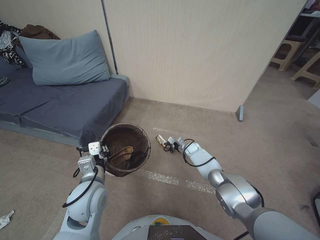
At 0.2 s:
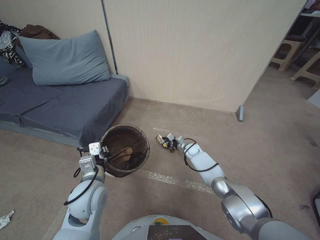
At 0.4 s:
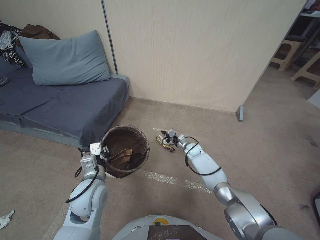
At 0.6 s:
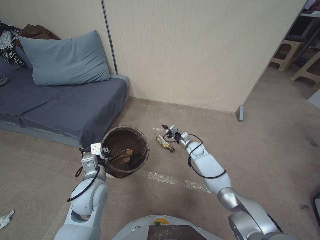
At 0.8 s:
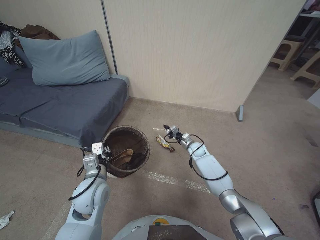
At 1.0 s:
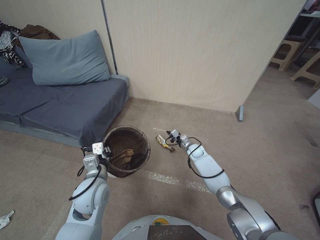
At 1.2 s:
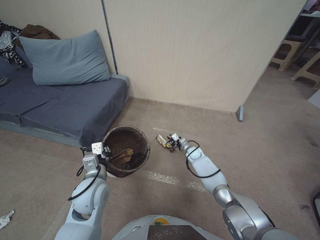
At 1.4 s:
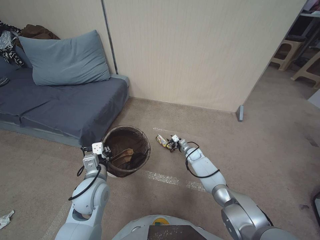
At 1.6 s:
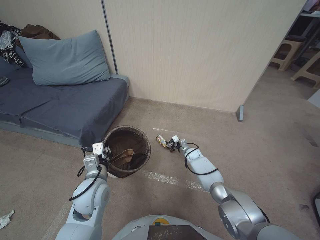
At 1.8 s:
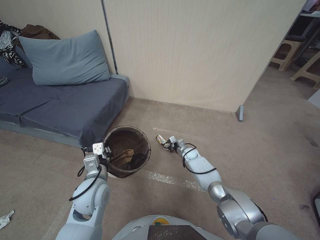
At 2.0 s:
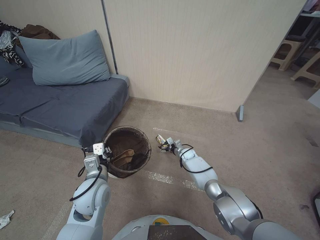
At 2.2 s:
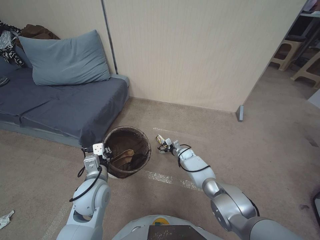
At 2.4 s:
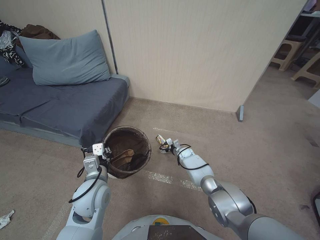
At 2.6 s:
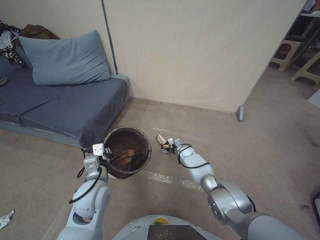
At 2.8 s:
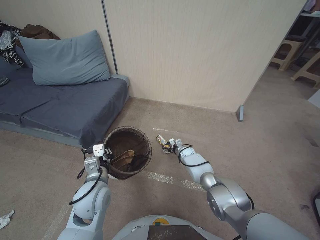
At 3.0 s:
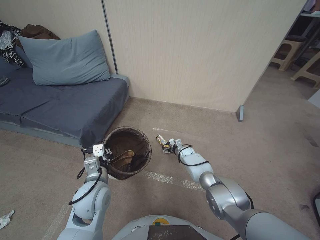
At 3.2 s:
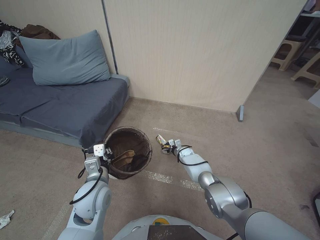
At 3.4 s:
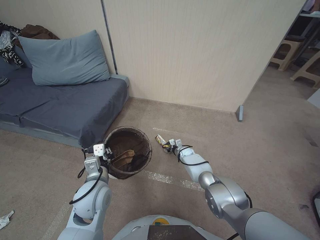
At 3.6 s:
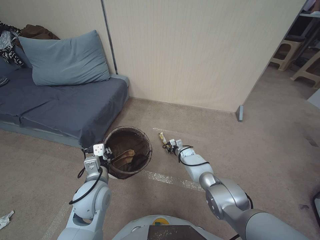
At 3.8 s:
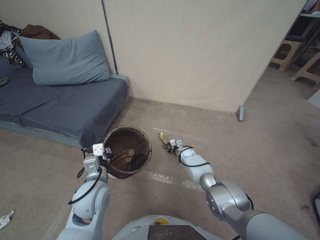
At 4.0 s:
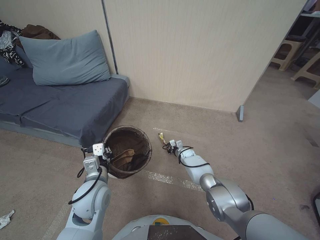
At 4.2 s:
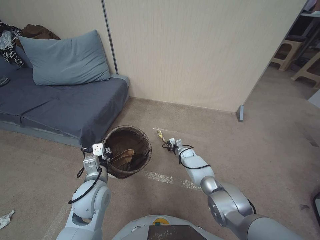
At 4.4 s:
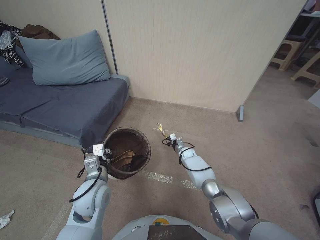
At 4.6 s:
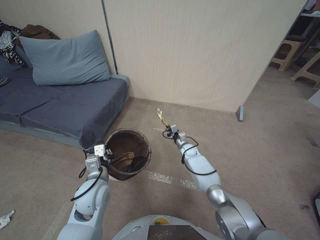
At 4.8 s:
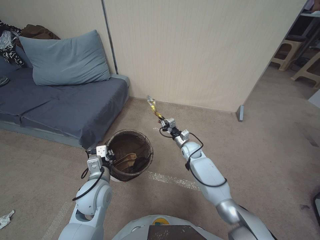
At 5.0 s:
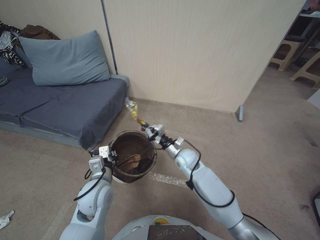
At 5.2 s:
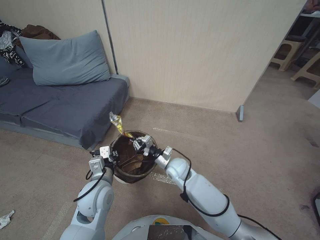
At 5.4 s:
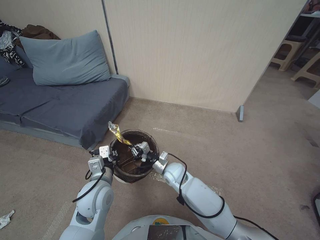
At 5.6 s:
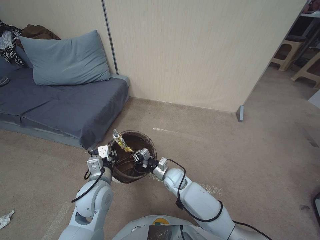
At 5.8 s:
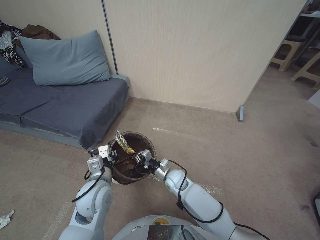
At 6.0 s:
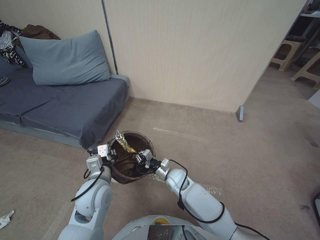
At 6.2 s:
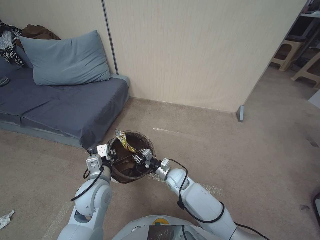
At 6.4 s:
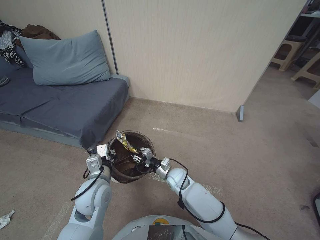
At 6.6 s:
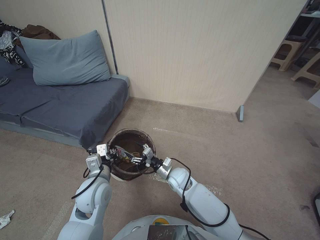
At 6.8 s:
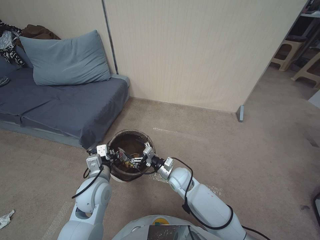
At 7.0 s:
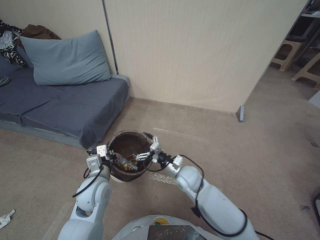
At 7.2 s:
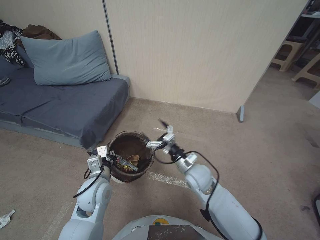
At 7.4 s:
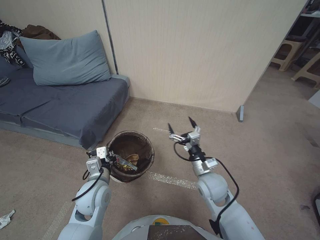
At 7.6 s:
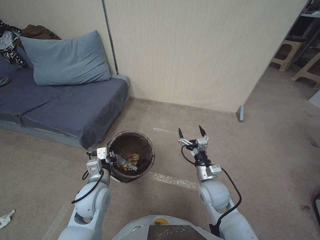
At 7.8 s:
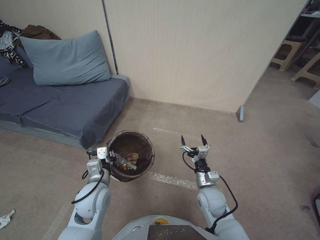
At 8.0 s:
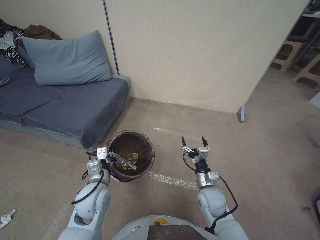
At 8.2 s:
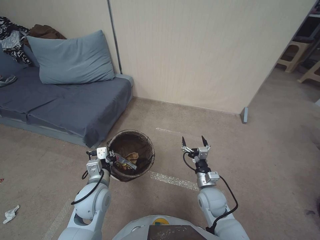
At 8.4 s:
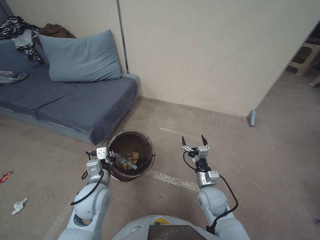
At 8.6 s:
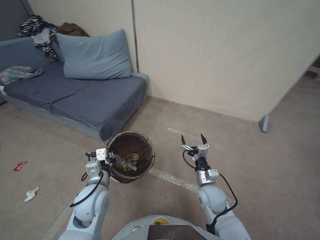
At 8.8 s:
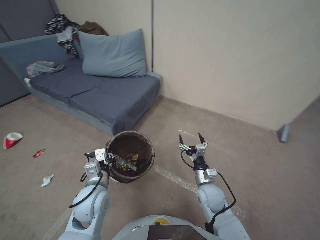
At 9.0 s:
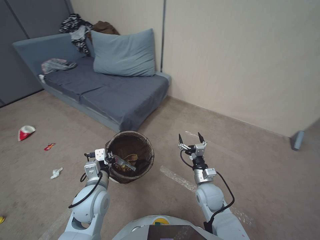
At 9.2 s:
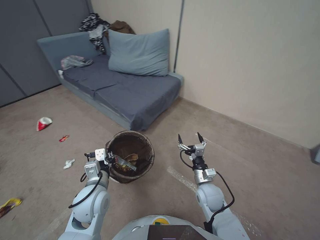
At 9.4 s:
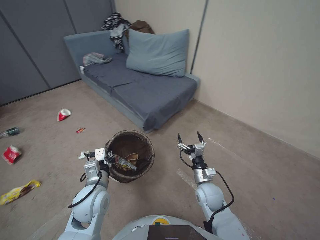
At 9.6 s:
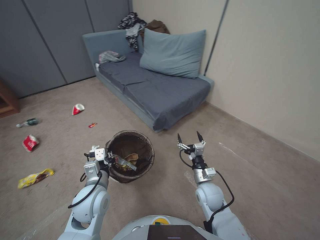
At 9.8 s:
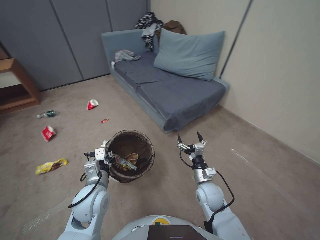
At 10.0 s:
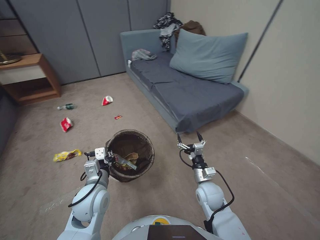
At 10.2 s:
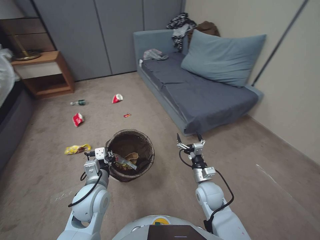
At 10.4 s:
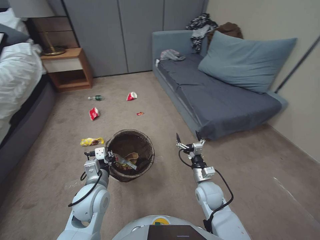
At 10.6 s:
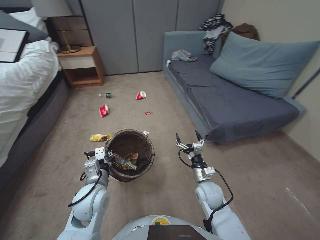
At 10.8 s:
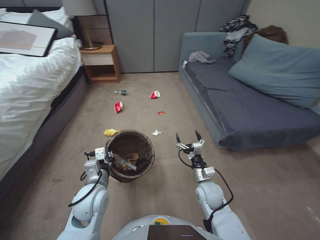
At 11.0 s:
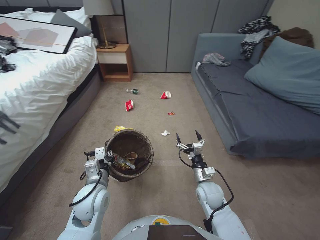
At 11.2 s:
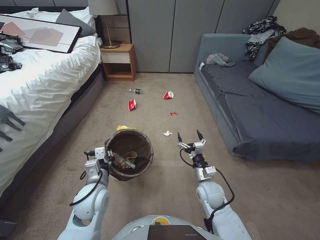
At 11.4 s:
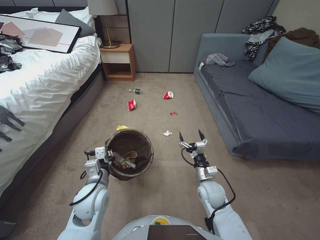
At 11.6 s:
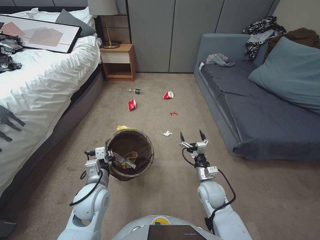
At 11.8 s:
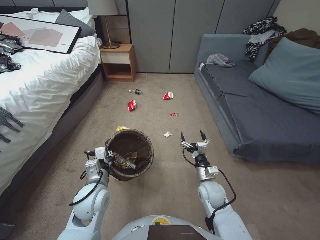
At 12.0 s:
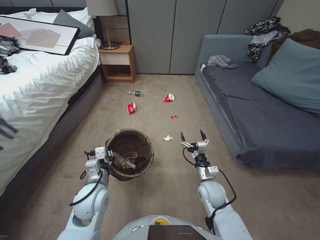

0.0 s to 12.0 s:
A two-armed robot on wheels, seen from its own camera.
Task of the whole recording: Pick up the trash bin, then pick up the garbage from the floor and place it into the trash bin.
0.0 to 1.6 s: The right gripper opens.
1.6 to 3.0 s: The right gripper opens its fingers.
3.0 to 4.4 s: The right gripper closes.
4.4 to 6.0 s: The right gripper moves backward, to the left and upward, approximately 20 cm.
6.0 to 7.6 s: The right gripper is displaced upward and to the right by approximately 15 cm, and opens its fingers.
7.6 to 9.0 s: The right gripper goes some 10 cm downward.

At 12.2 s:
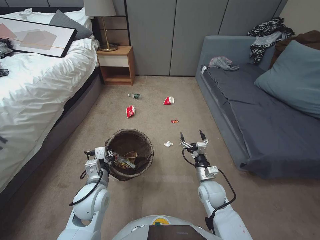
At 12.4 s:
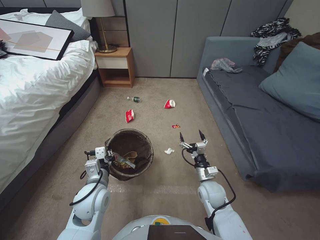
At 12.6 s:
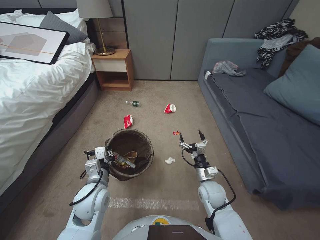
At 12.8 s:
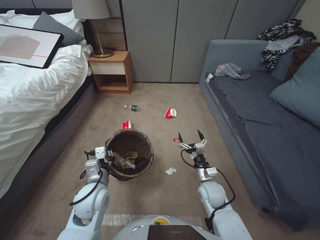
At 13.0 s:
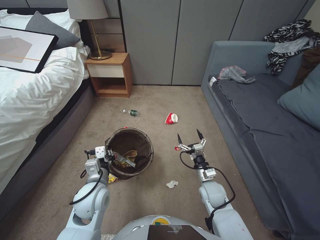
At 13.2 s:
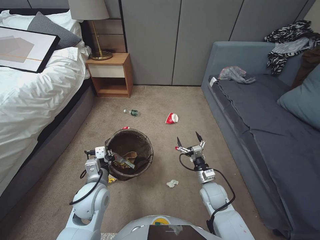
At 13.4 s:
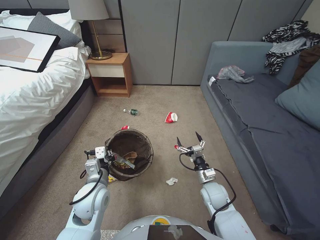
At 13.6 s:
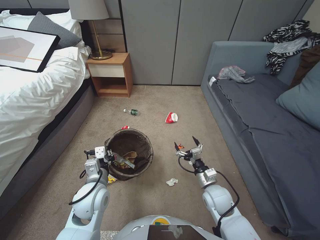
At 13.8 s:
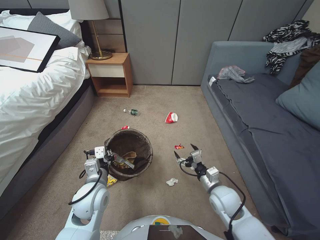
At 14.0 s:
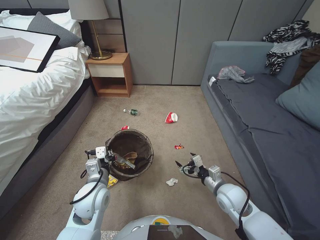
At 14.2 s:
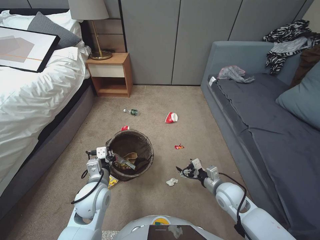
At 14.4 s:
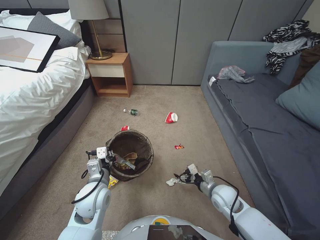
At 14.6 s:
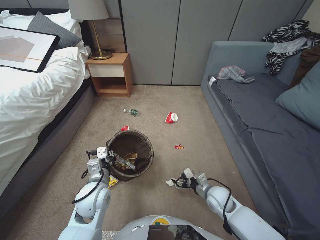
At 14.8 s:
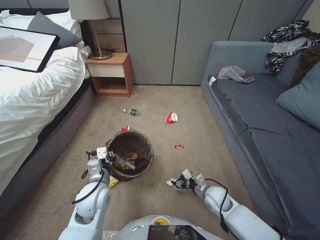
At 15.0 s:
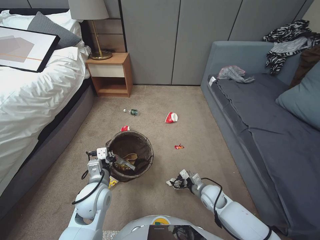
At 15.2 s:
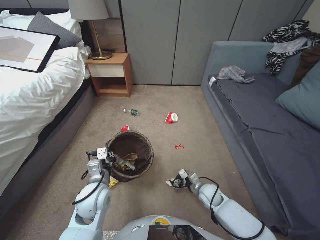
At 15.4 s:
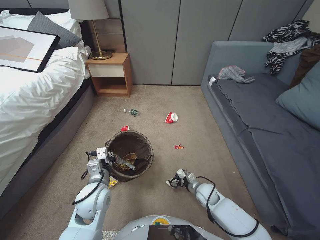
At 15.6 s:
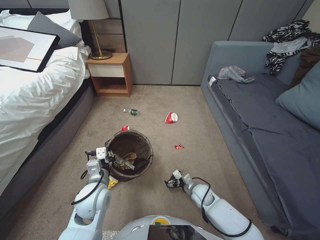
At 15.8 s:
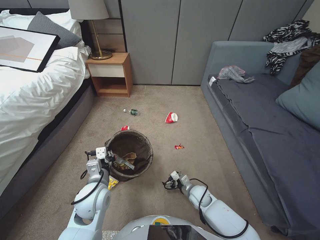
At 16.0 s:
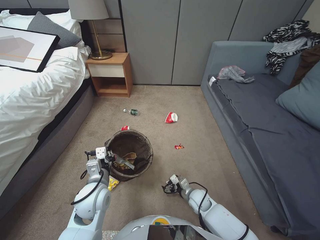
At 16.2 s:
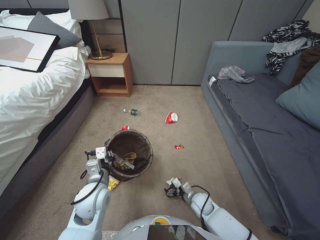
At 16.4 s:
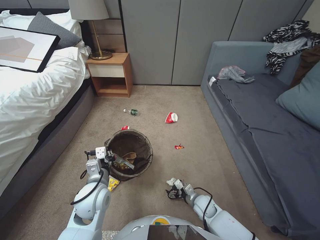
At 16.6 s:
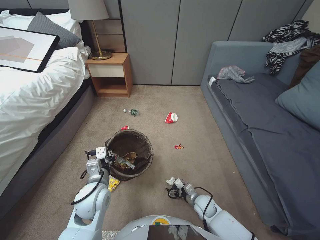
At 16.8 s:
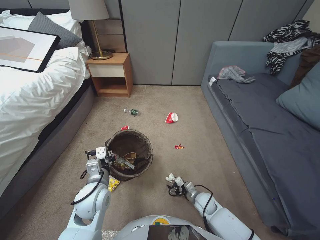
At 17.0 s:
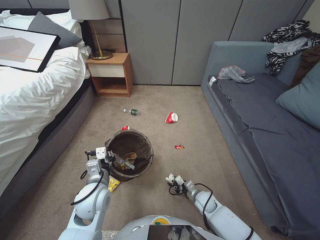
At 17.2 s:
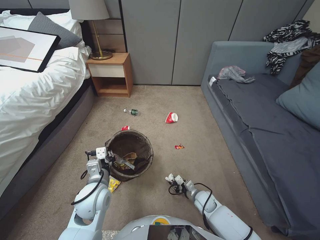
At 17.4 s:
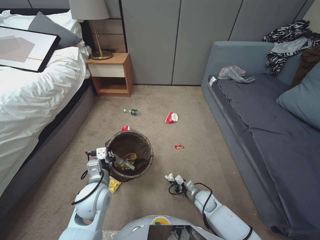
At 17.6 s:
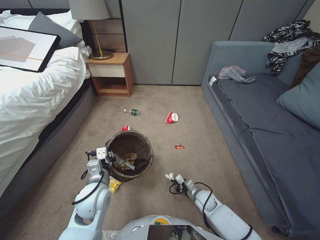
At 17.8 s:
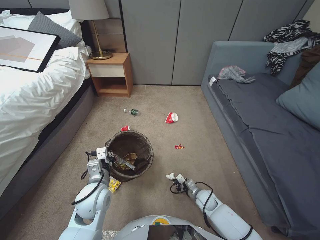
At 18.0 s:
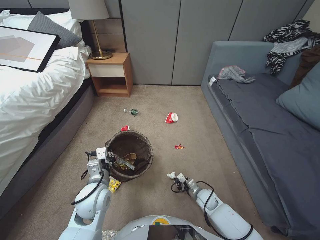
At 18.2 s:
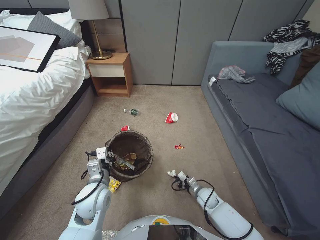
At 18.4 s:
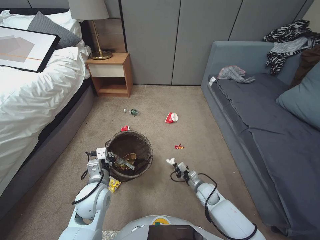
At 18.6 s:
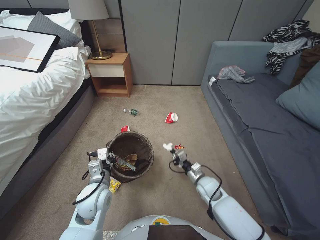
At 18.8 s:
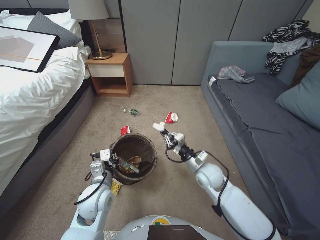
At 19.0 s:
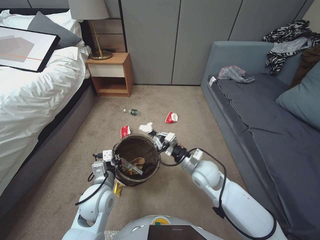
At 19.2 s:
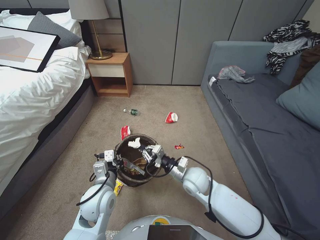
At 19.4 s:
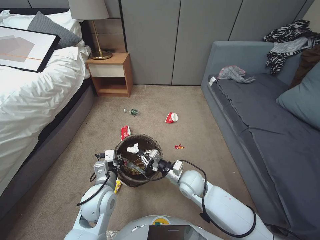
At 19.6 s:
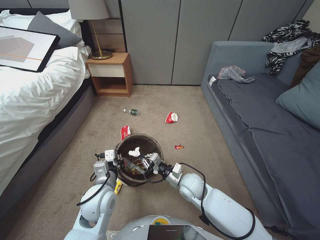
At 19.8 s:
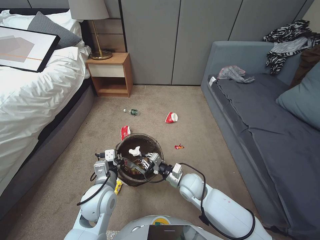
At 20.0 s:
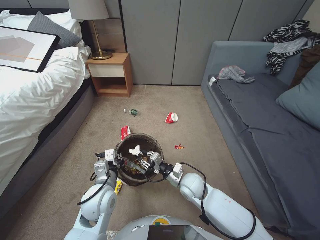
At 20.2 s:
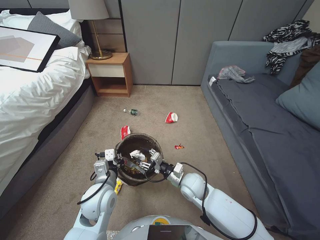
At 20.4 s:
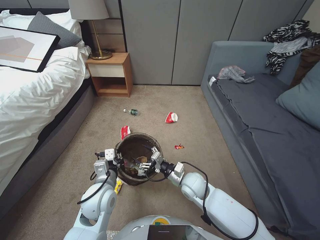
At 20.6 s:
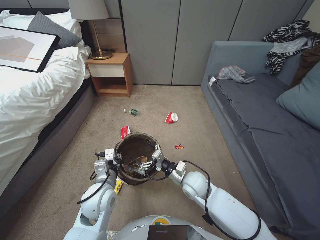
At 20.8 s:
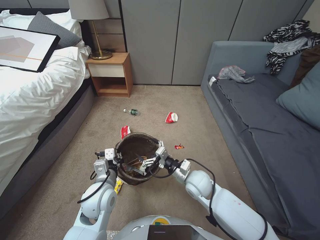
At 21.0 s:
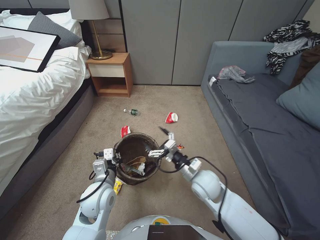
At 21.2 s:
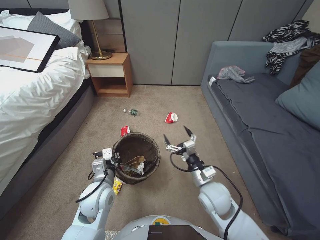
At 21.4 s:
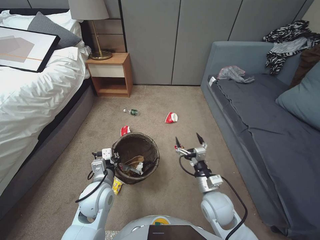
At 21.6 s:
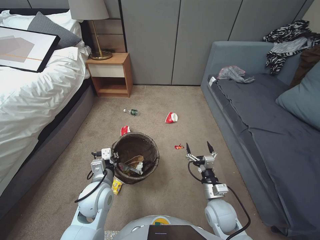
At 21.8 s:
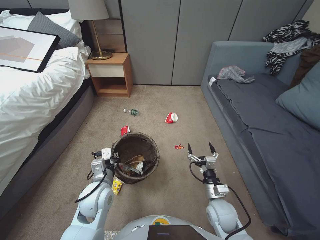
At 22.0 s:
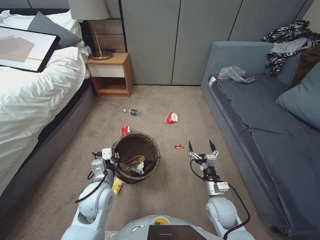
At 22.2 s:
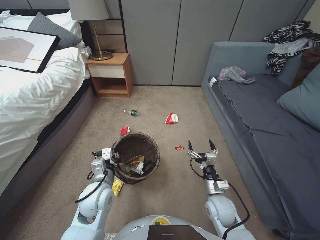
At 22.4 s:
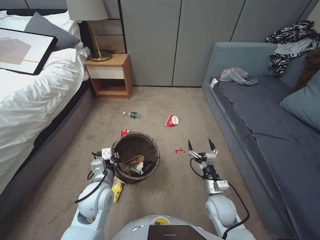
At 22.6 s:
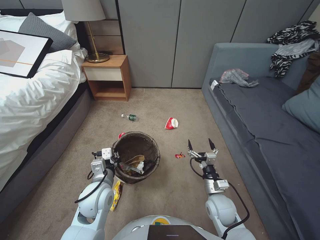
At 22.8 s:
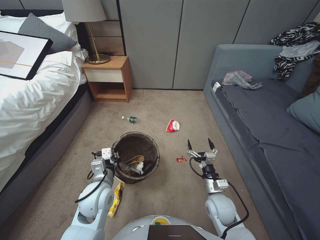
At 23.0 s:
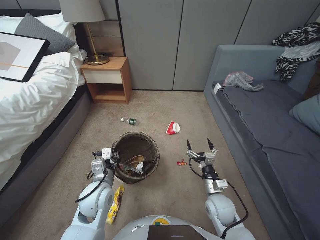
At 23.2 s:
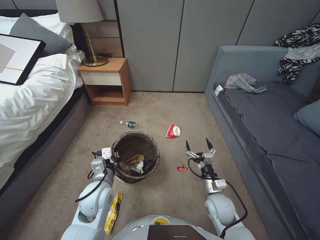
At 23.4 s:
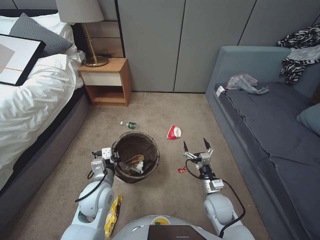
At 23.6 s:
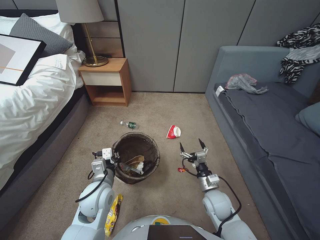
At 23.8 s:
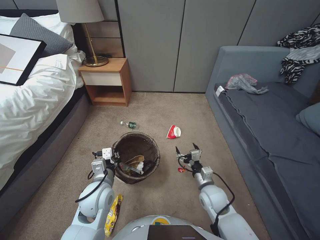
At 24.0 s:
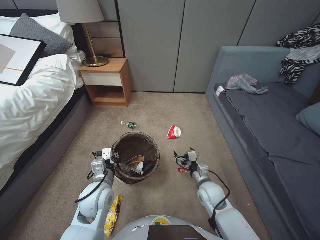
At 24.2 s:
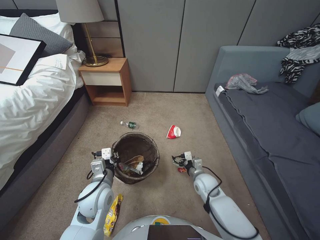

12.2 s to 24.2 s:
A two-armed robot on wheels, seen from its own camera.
Task of the whole recording: Pick up the trash bin, then pick up the garbage from the floor and place it into the trash bin.
13.8 to 15.2 s: The right gripper is displaced downward by some 10 cm.
15.2 to 16.6 s: The right gripper shifts roughly 5 cm downward.
16.6 to 18.2 s: The right gripper closes.
18.2 to 19.8 s: The right gripper moves upward and to the left, about 20 cm.
19.8 to 21.2 s: The right gripper is displaced upward and to the right by approximately 10 cm, and opens.
21.2 to 22.6 s: The right gripper is displaced downward by about 10 cm.
22.6 to 24.2 s: The right gripper heads forward, covering approximately 10 cm.
